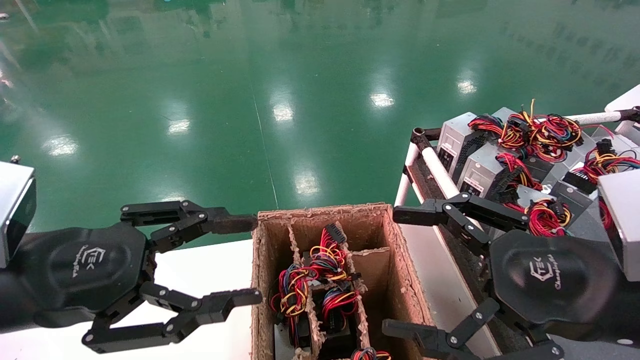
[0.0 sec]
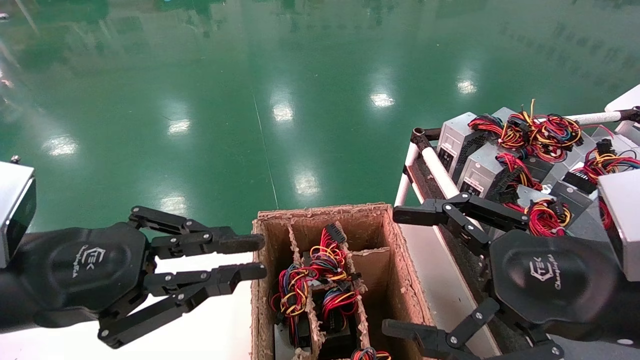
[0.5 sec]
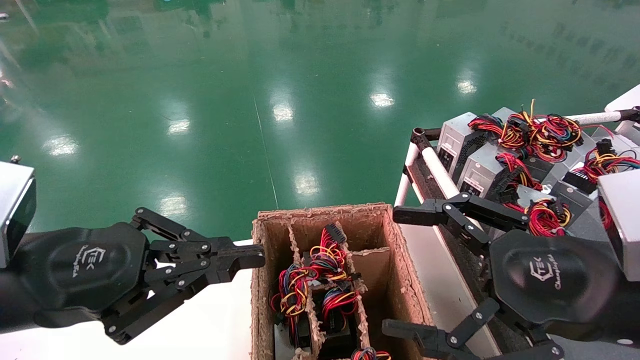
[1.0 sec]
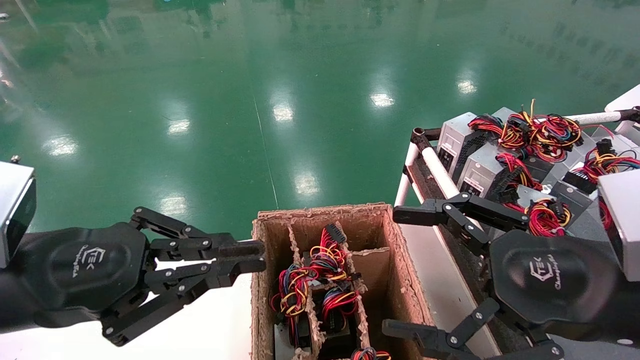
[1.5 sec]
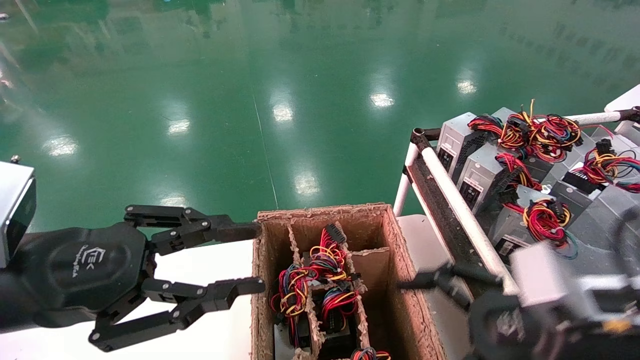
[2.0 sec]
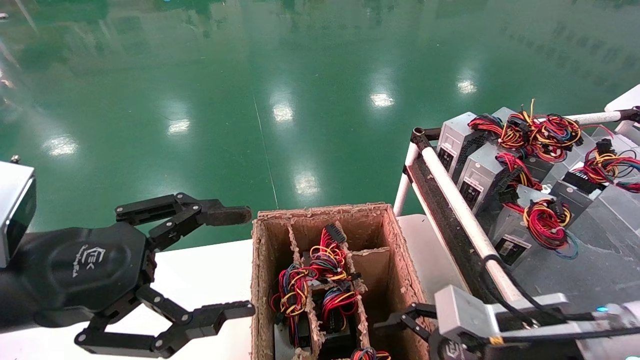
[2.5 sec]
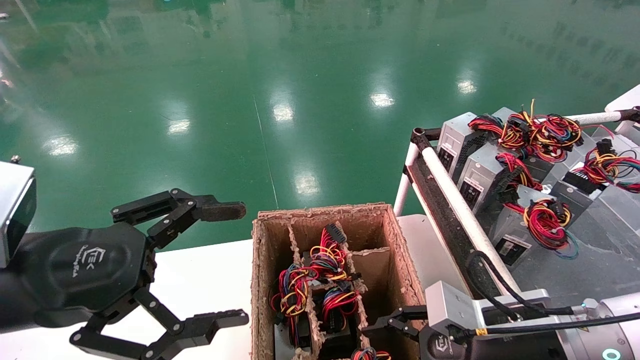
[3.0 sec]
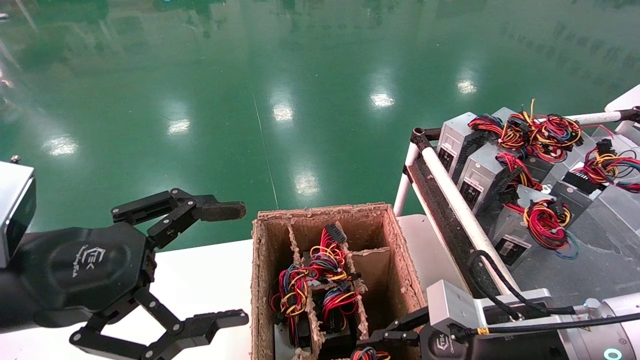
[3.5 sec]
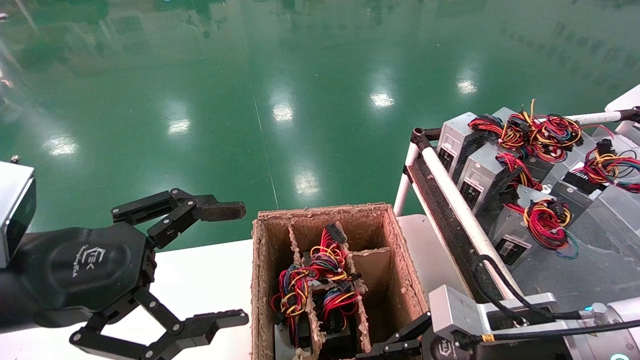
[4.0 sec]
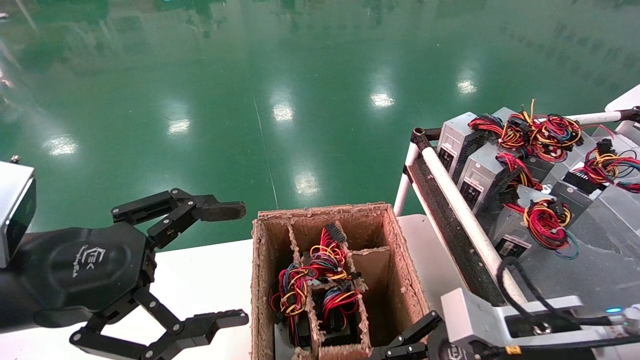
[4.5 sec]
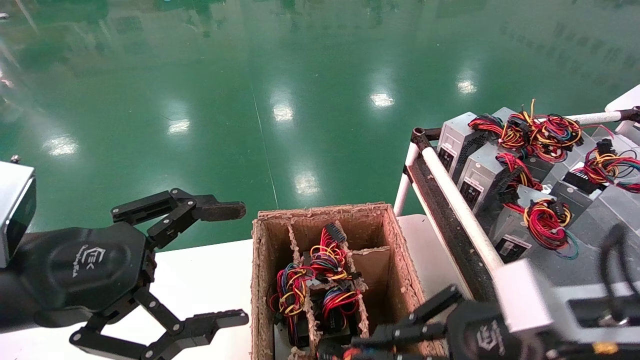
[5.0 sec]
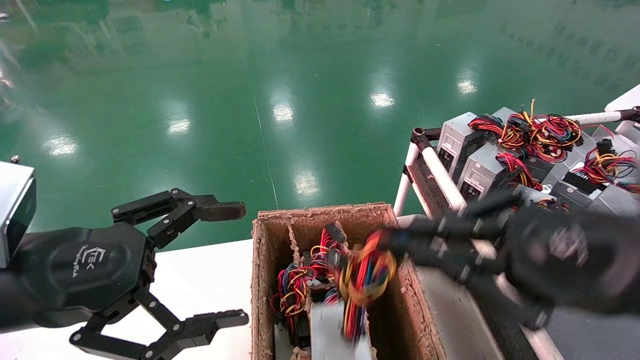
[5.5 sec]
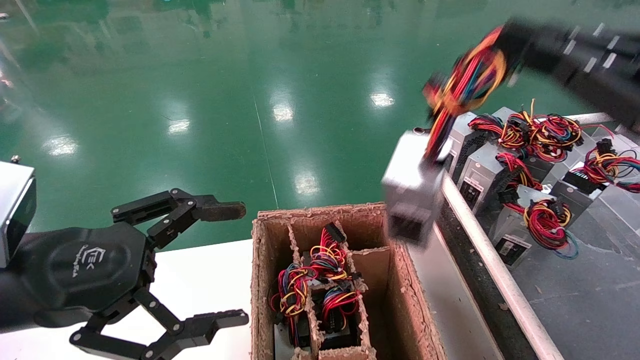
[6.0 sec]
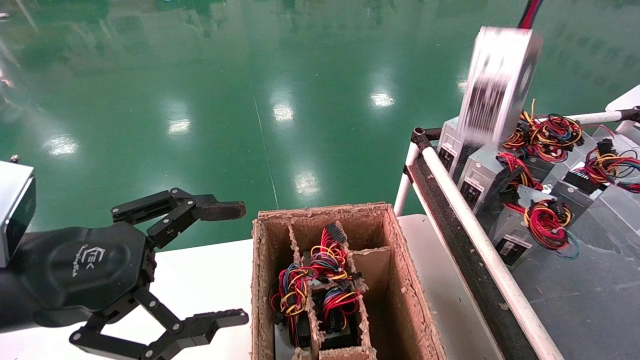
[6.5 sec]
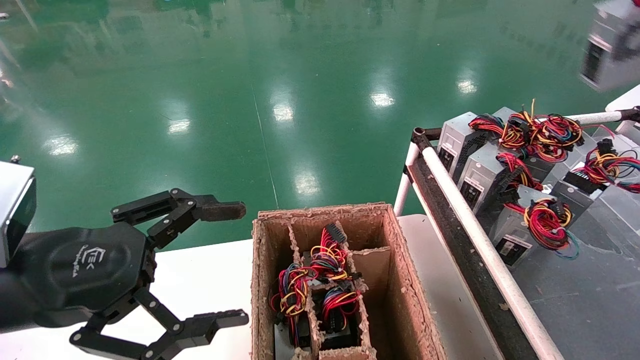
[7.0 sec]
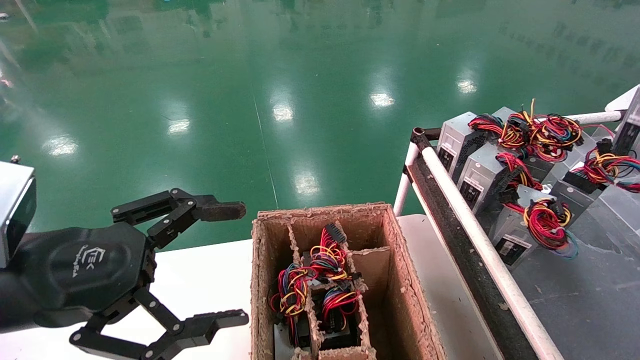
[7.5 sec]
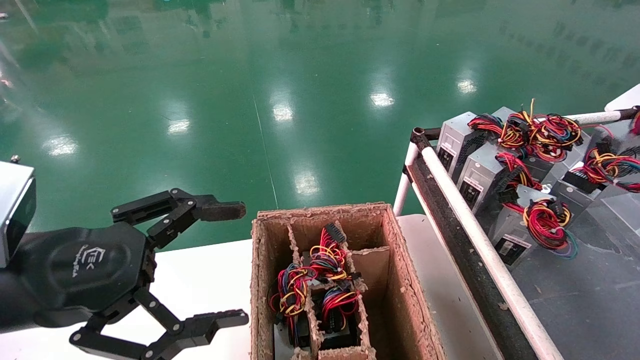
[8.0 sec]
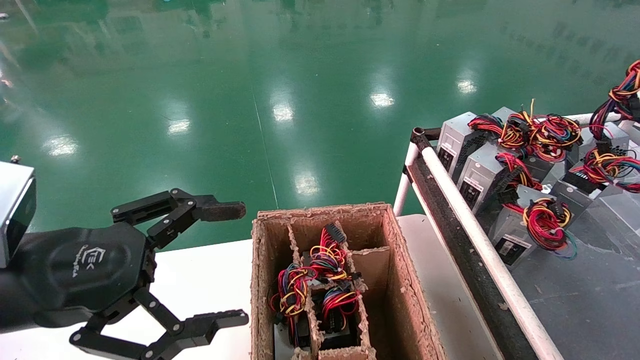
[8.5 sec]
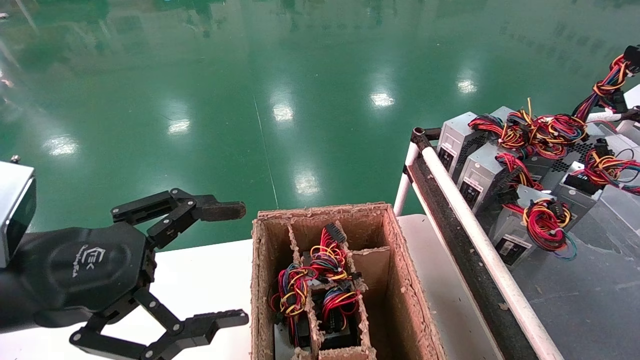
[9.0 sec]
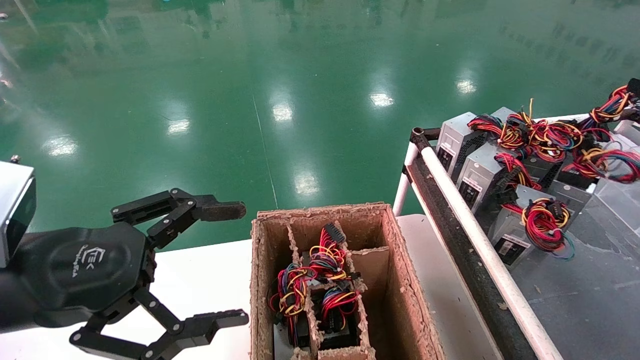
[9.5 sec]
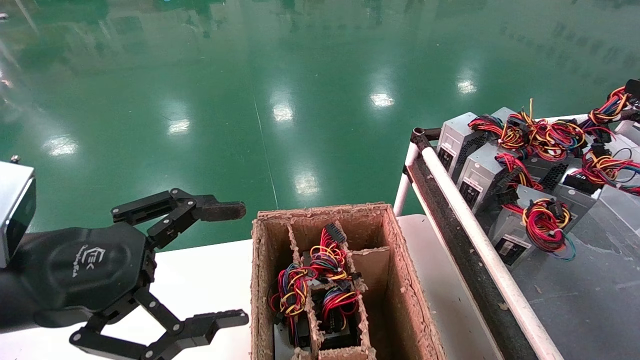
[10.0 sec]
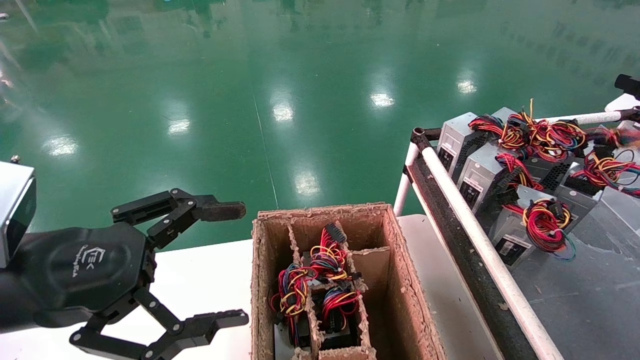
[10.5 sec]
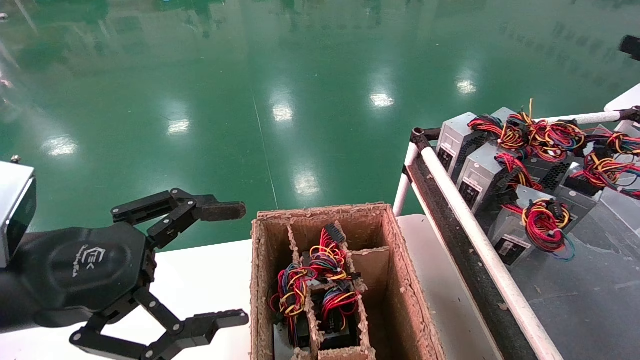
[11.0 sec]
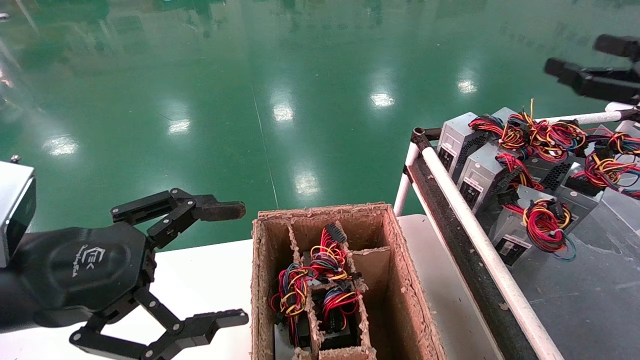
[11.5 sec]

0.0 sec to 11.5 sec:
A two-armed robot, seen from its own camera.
Step, 1.0 sec to 5.0 sec: Grab and lift the power supply from the large box.
Step, 5.5 sec to 10.0 sec: Place the power supply on the operating table.
0.0 sec to 2.0 sec: The right gripper is displaced downward by about 5 cm.
2.0 sec to 4.0 sec: The right gripper heads downward and forward, covering roughly 10 cm, and closes its fingers, while the left gripper opens its fingers.
4.0 sec to 6.0 sec: The right gripper heads upward and to the right, covering approximately 25 cm.
6.0 sec to 7.5 sec: The right gripper is displaced to the right and forward by approximately 25 cm.
7.5 sec to 9.5 sec: The right gripper goes some 10 cm downward.
9.5 sec to 11.5 sec: The right gripper heads to the left, covering about 10 cm, and opens up.
